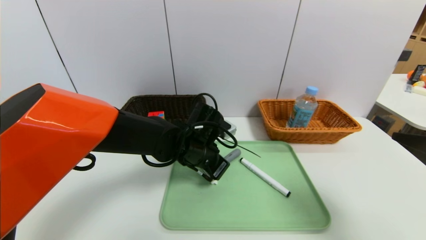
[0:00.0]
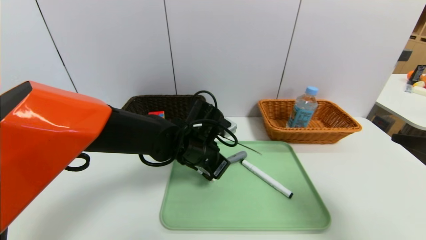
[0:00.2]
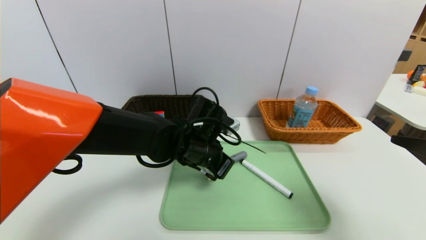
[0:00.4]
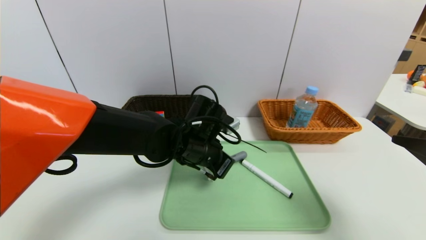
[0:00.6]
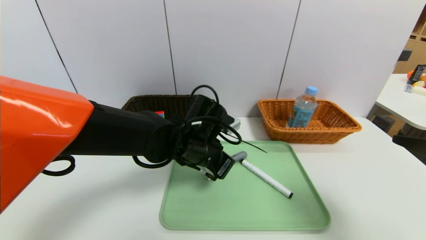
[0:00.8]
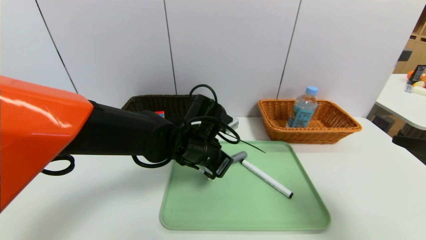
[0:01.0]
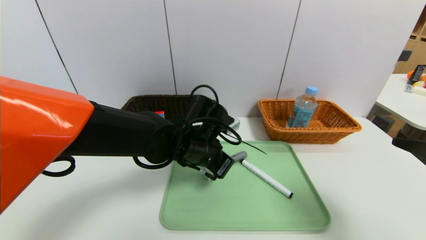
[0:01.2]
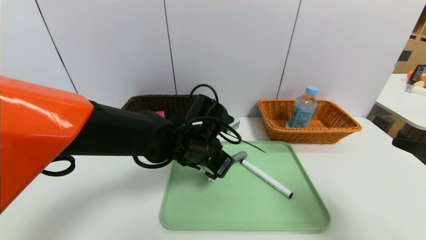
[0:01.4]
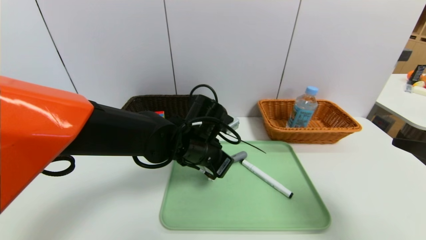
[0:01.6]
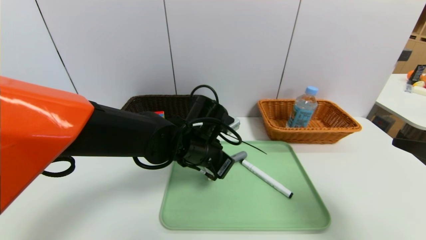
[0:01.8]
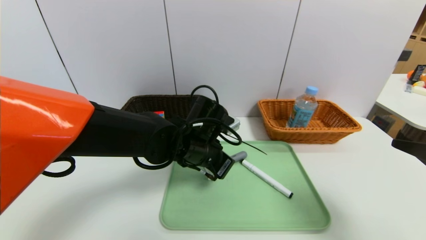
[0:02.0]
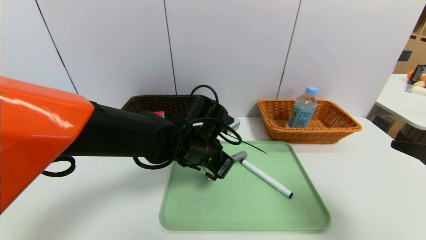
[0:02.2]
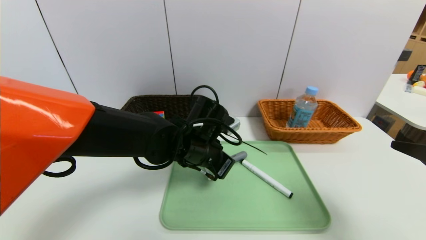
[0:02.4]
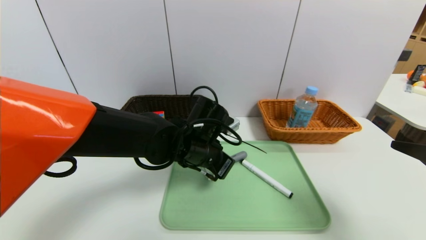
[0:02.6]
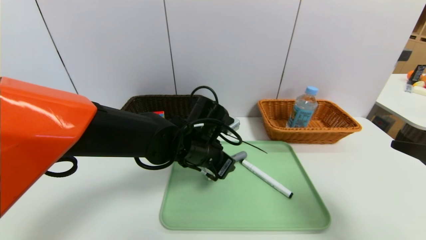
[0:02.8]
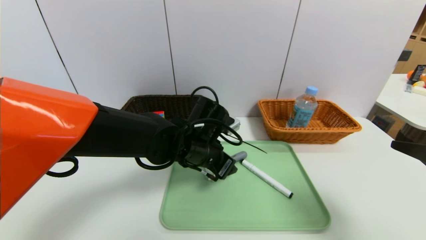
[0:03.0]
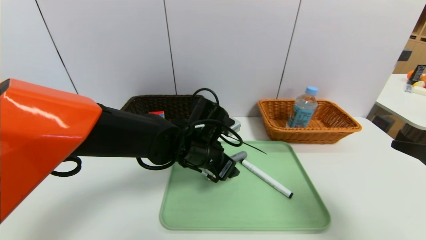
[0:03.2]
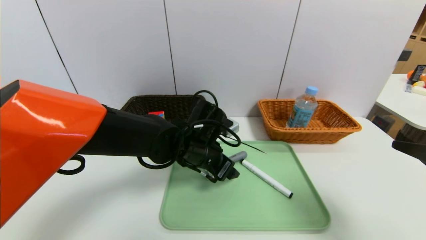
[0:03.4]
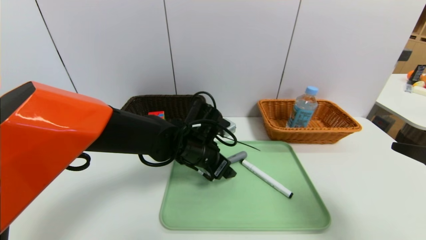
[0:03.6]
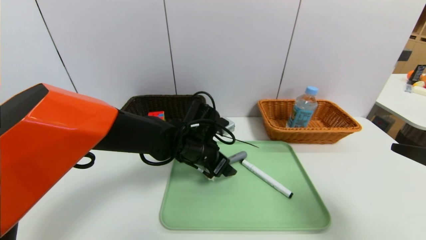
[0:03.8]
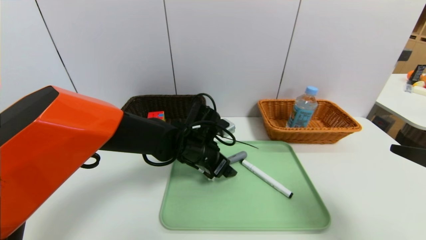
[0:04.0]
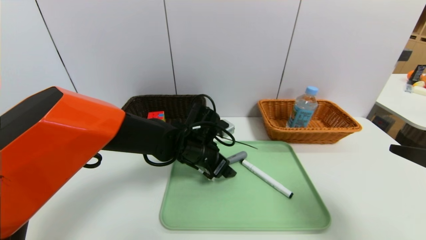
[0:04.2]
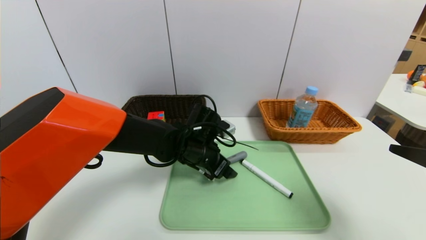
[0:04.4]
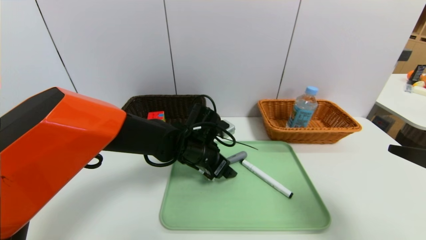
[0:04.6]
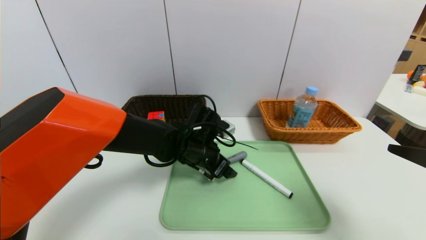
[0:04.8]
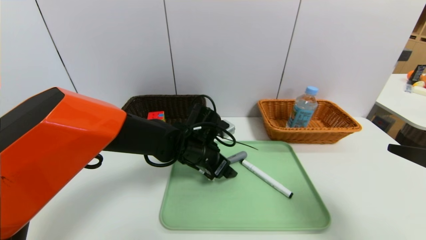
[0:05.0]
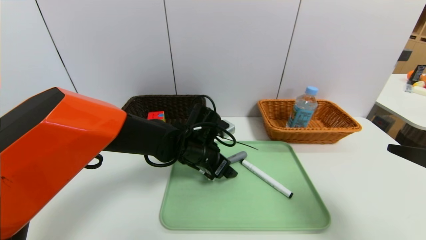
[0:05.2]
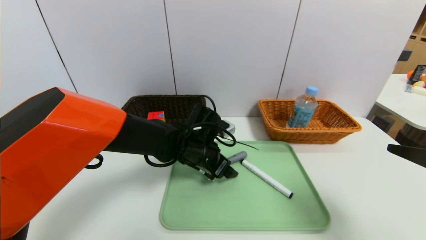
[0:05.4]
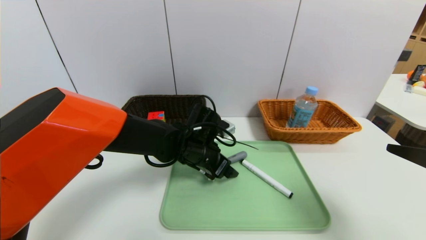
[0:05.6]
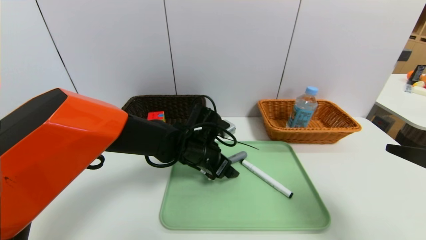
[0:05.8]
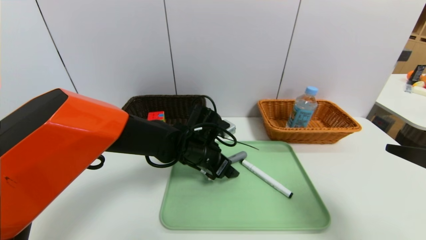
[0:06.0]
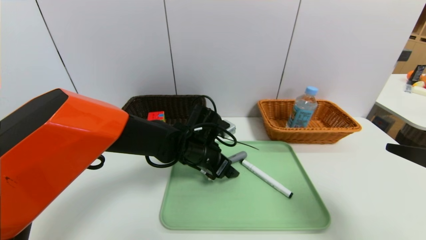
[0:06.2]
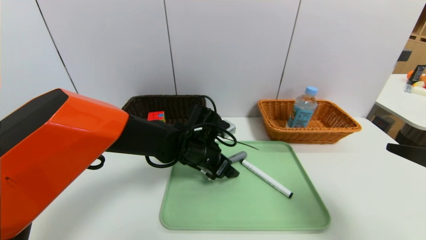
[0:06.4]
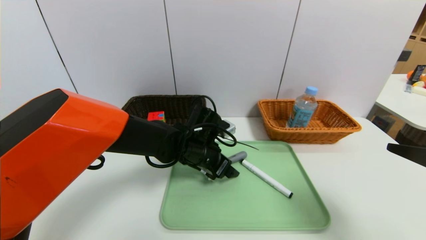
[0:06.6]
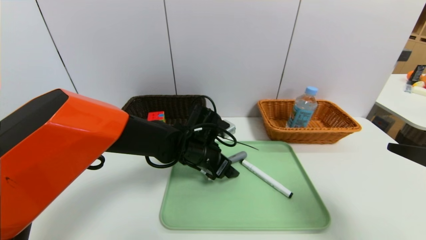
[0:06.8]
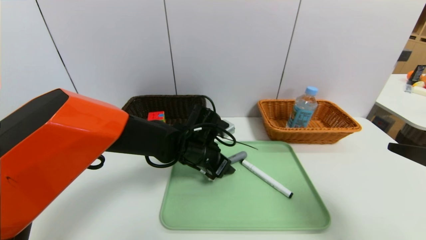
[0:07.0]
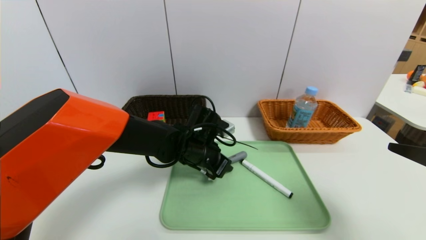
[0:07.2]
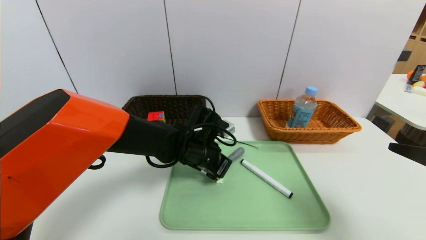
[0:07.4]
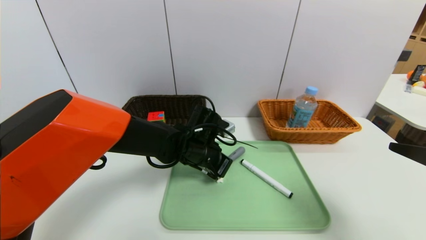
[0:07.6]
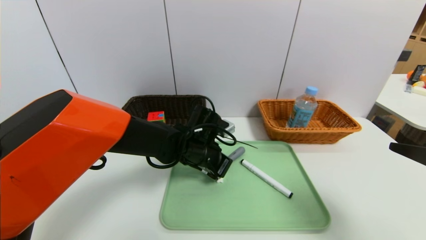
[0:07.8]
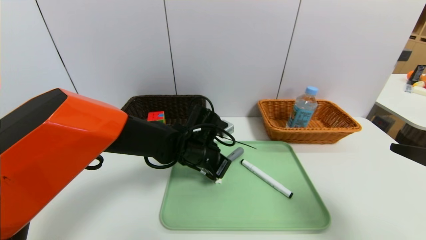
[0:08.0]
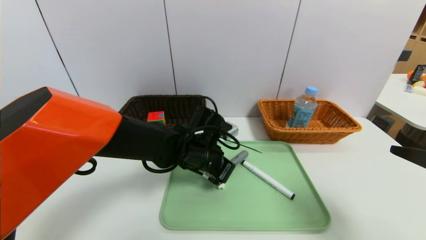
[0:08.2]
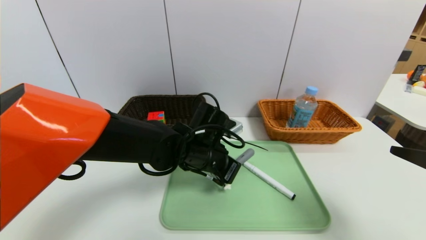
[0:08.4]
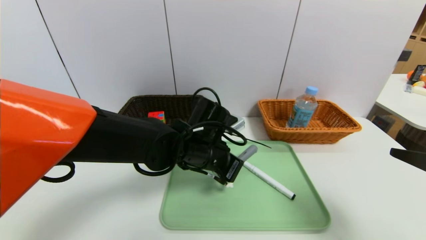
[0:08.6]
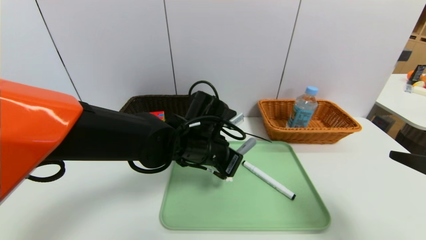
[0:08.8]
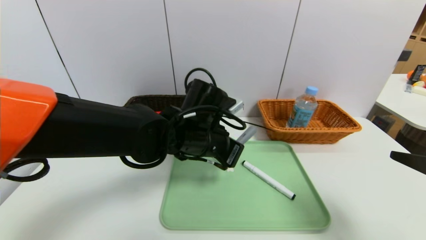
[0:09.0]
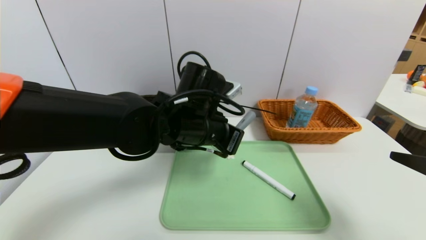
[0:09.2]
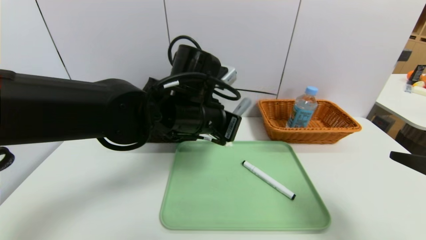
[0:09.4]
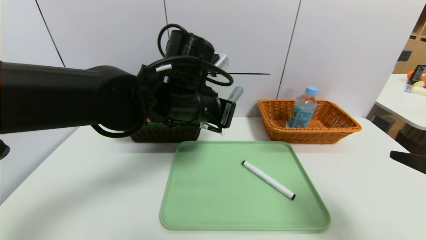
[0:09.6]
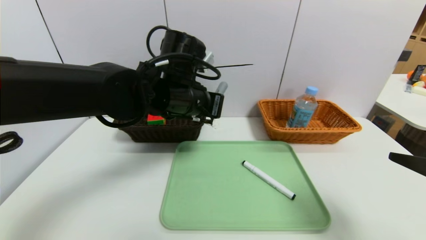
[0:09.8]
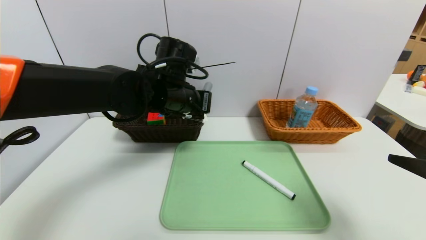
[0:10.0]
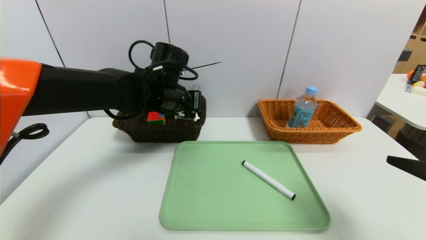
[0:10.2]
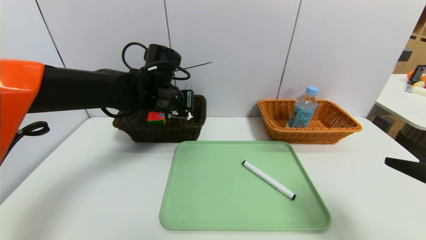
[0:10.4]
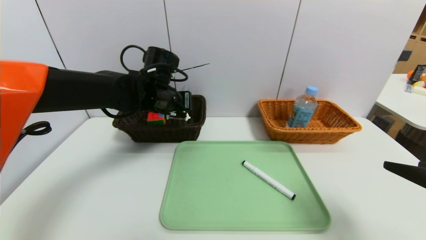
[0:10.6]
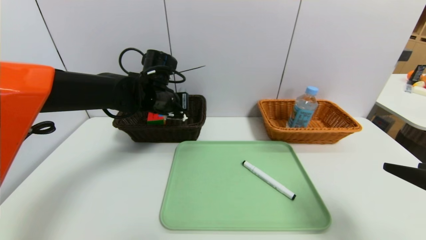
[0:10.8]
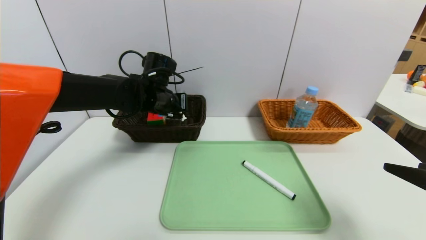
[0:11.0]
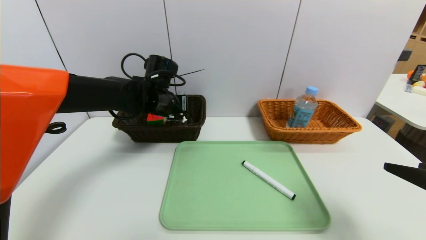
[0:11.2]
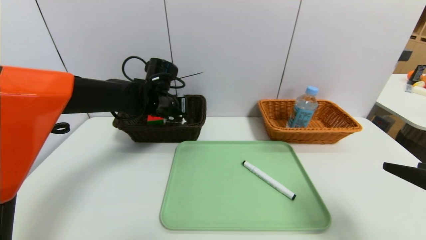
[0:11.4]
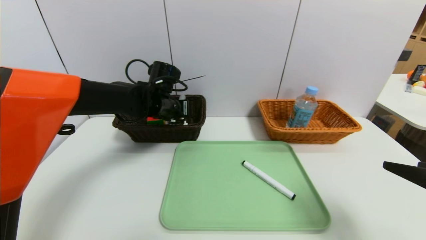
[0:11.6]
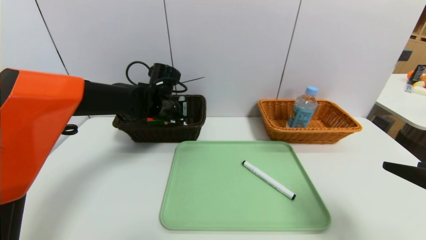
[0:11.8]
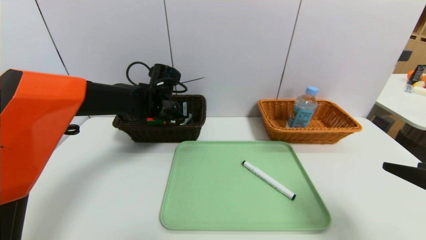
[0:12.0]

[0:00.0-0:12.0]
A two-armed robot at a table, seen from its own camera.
Task of the whole recording: place the food in the right basket with the right gripper, and place the non food items in the left basket with the left gripper.
0:00.0 to 0:01.6: The grippers make only small movements.
0:01.6 to 0:03.0: The left gripper opens up.
0:03.0 to 0:04.4: The grippers move only a little.
0:04.4 to 0:06.0: The two grippers keep their place.
0:06.0 to 0:07.6: The left gripper closes its fingers.
0:07.6 to 0:09.0: The left gripper heads upward and backward, covering roughly 10 cm.
0:09.0 to 0:10.4: The left gripper goes approximately 10 cm forward and to the left.
0:10.4 to 0:12.0: The left gripper ends up about 5 cm from where it was.

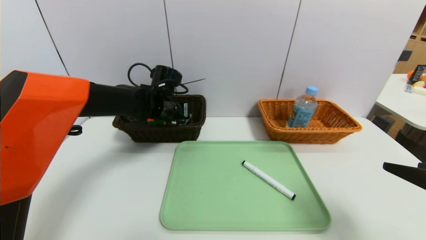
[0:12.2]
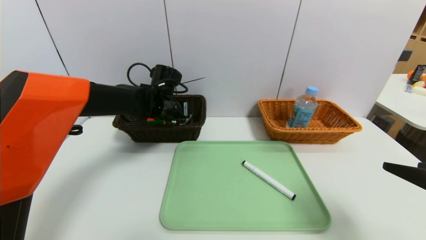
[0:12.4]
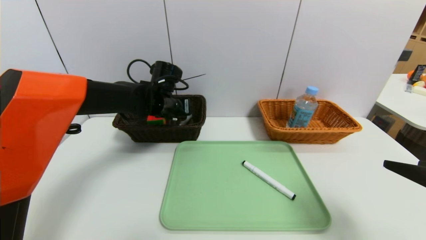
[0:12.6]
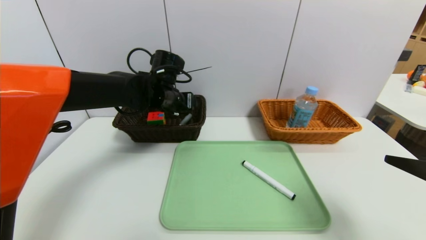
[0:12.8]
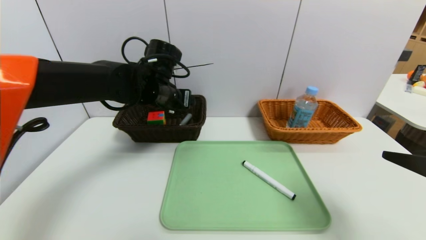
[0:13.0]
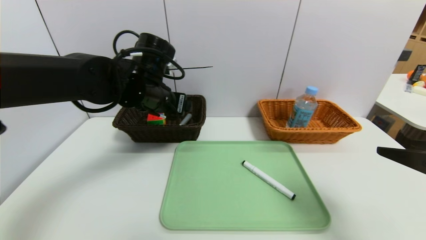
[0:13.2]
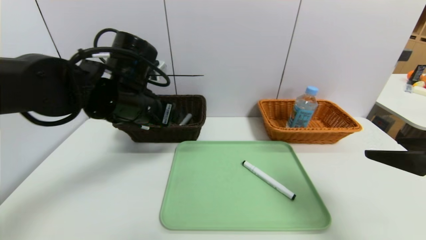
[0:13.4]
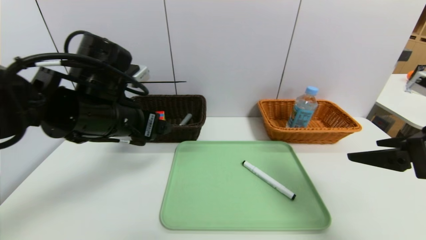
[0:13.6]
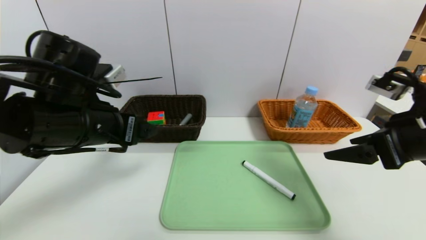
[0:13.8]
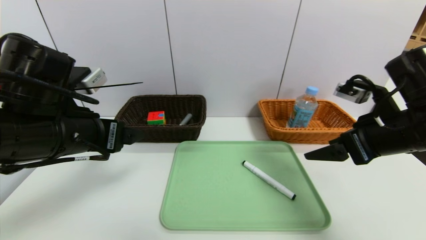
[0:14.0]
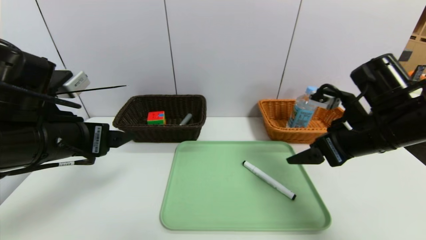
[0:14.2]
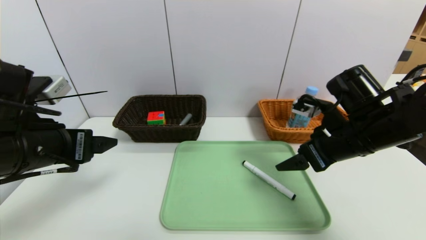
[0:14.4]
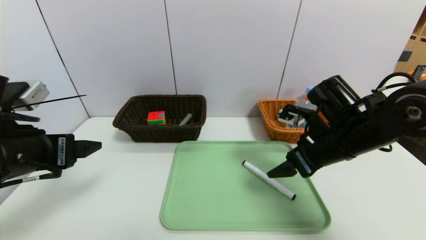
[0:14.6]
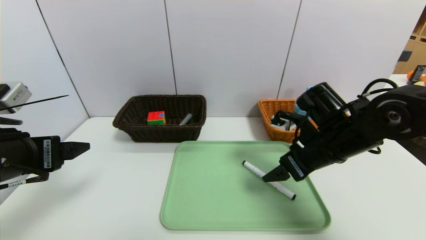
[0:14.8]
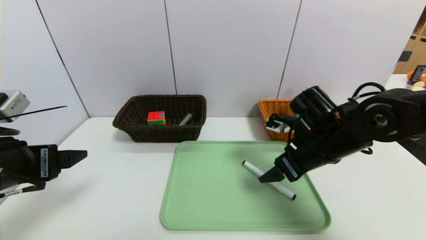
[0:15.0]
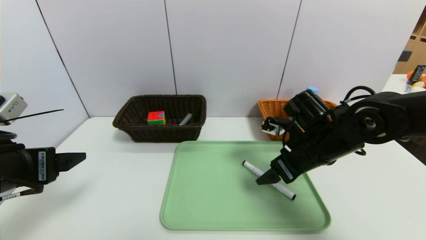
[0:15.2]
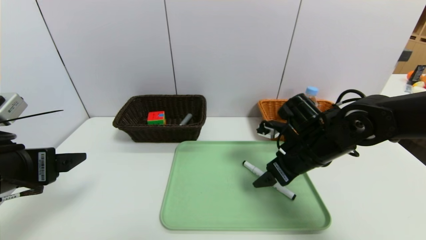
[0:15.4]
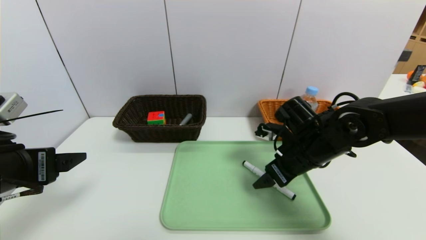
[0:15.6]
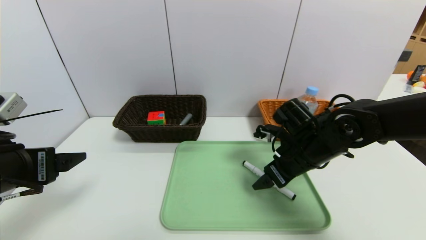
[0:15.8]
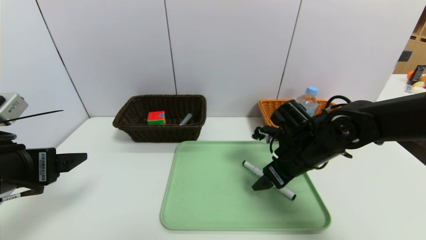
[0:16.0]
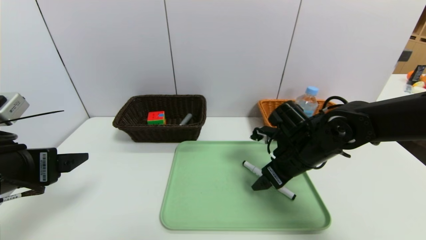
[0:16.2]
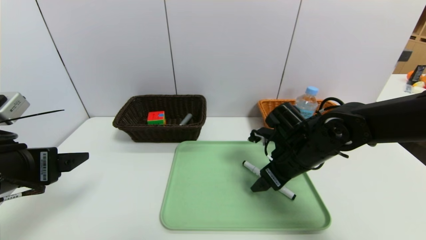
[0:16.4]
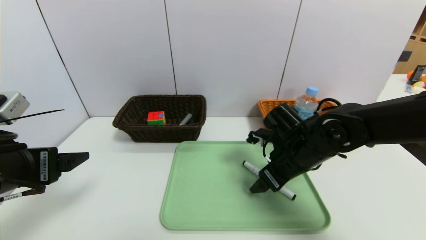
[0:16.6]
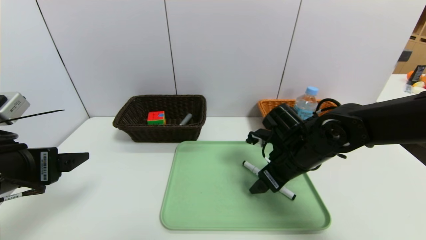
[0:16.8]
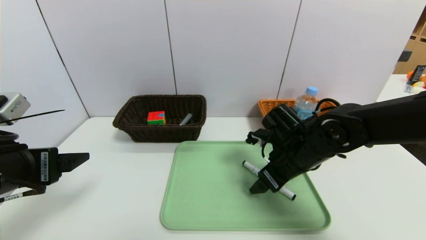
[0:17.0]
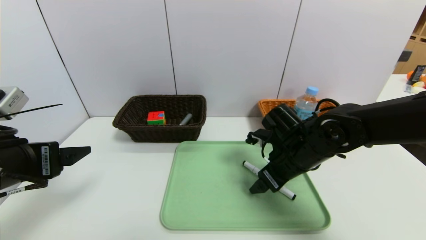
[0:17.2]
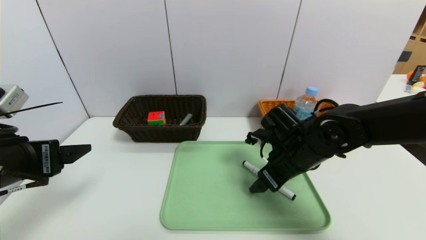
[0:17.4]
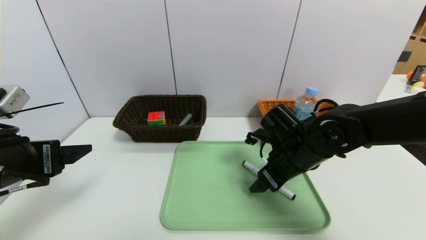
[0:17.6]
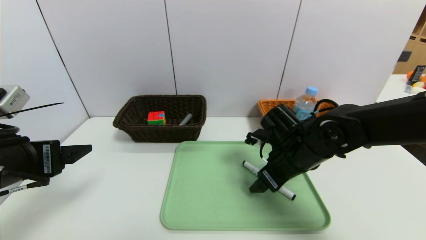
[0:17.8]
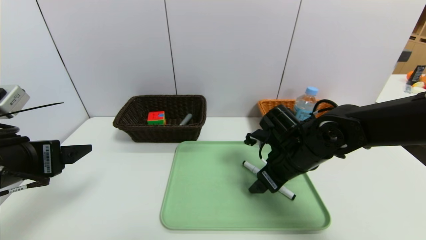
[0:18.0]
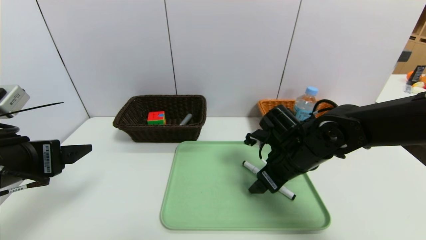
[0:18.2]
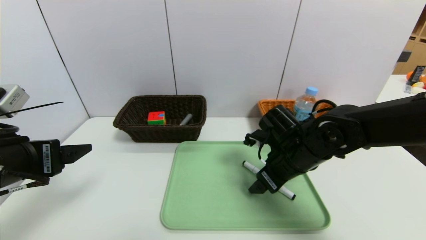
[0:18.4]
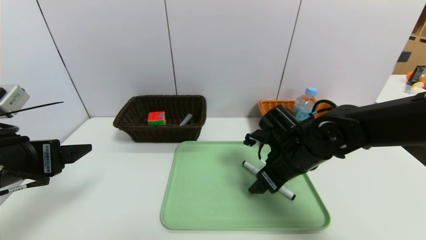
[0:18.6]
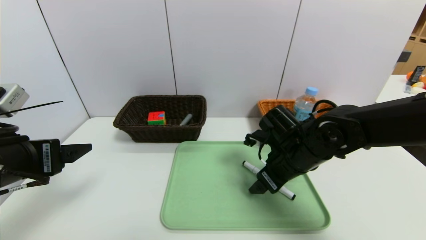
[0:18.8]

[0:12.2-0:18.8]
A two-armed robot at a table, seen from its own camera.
Task of the whole recording: place the food in the right basket with the right gripper, and place the non food items in the left basket with the left gripper.
0:12.2 to 0:13.8: The right gripper moves forward, approximately 10 cm, while the left gripper heads backward, covering some 20 cm, and opens up.
0:13.8 to 0:15.4: The right gripper is displaced to the left, downward and forward by roughly 15 cm, while the left gripper travels to the left and backward by roughly 10 cm.
0:15.4 to 0:17.2: There are only small adjustments of the grippers.
0:17.2 to 0:18.8: Both grippers stay about where they are.
